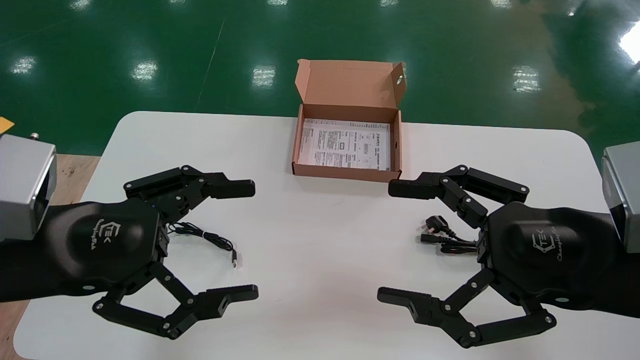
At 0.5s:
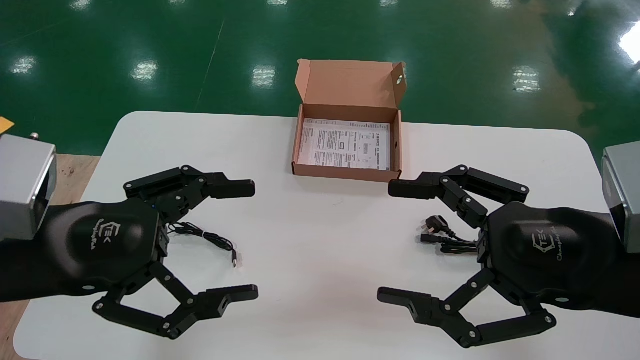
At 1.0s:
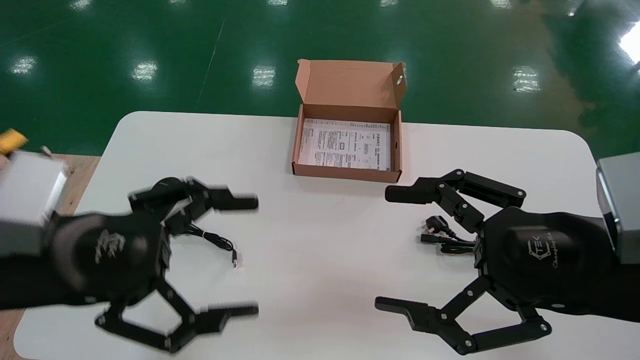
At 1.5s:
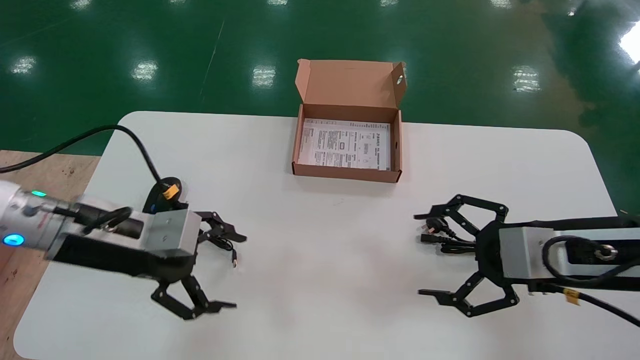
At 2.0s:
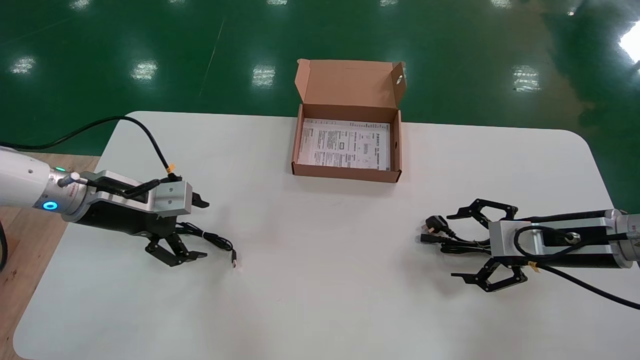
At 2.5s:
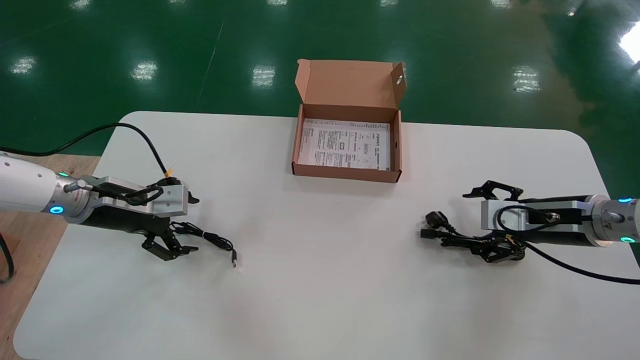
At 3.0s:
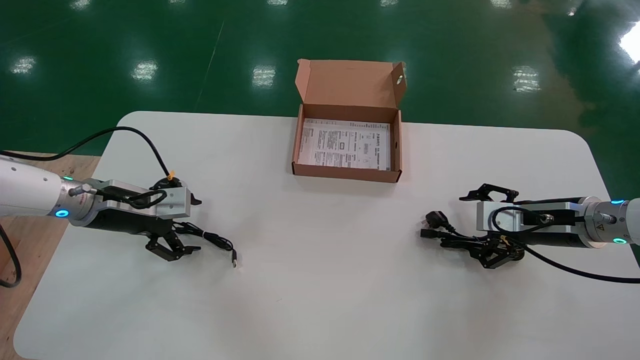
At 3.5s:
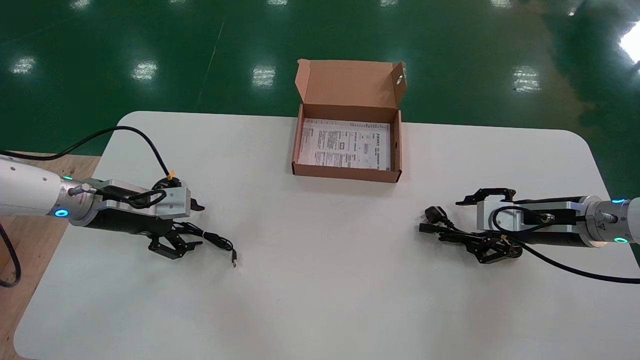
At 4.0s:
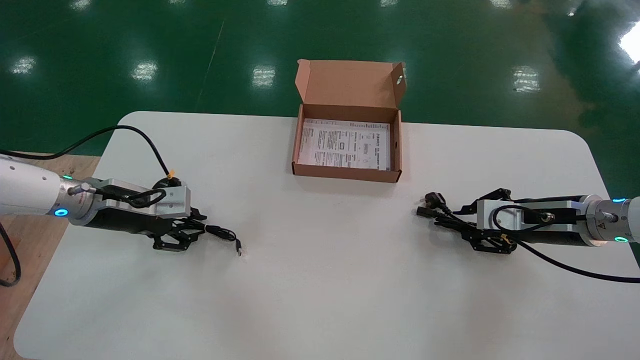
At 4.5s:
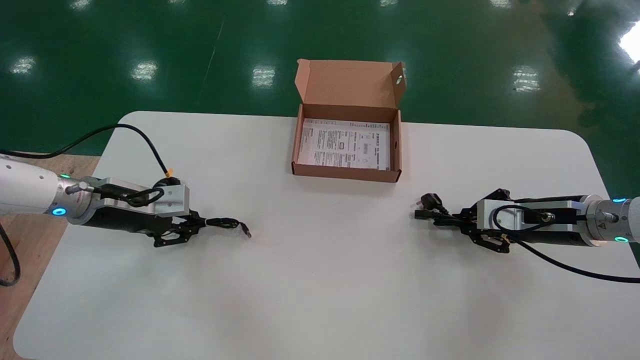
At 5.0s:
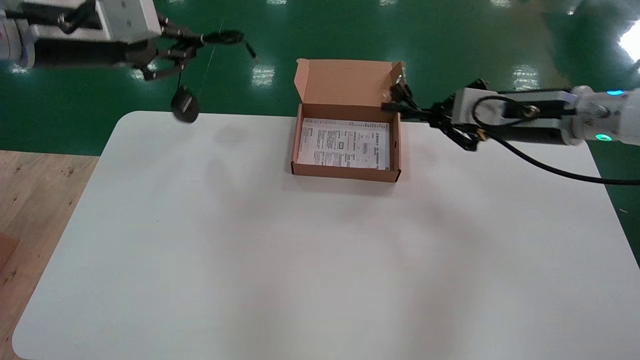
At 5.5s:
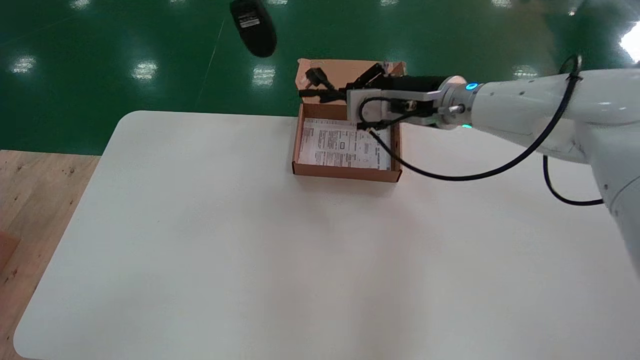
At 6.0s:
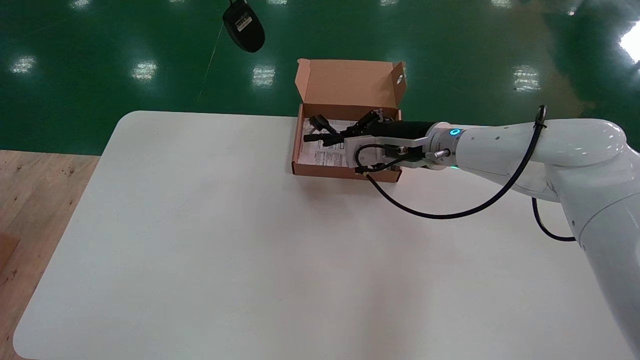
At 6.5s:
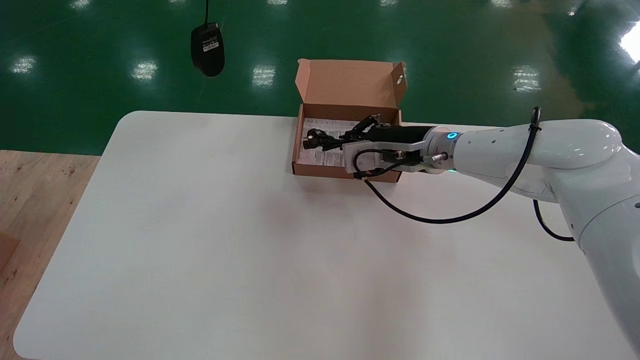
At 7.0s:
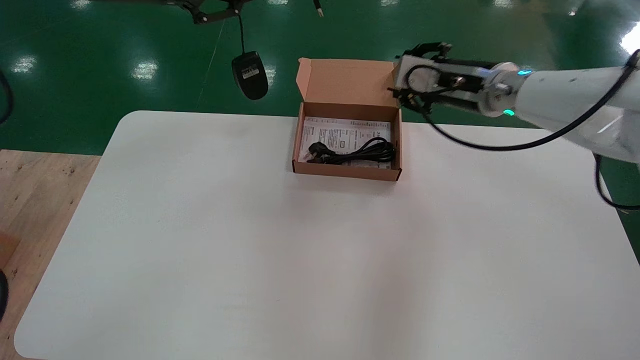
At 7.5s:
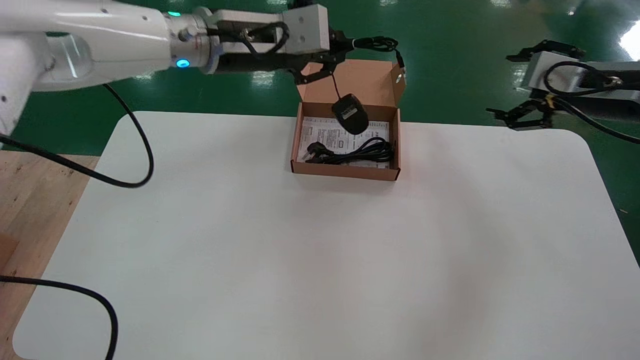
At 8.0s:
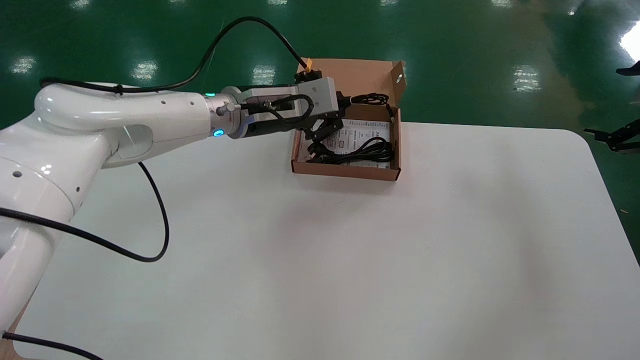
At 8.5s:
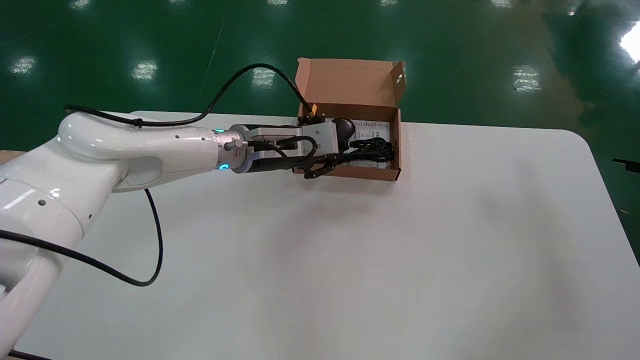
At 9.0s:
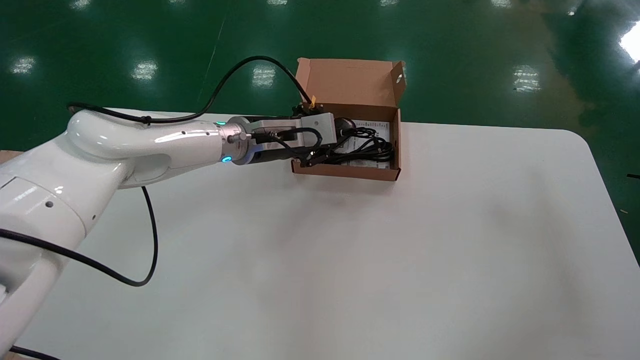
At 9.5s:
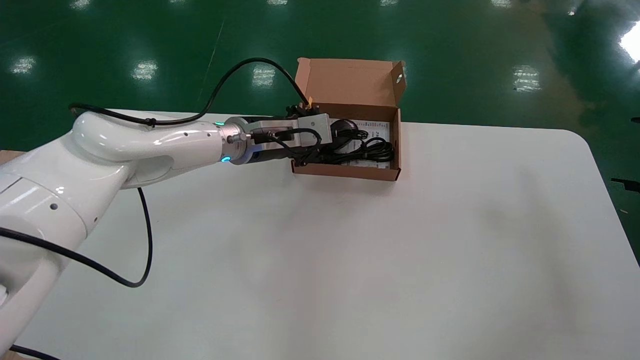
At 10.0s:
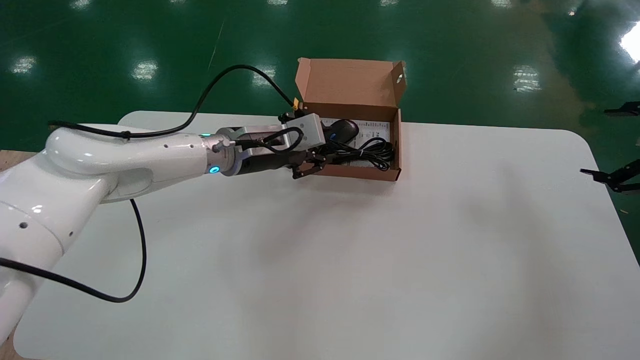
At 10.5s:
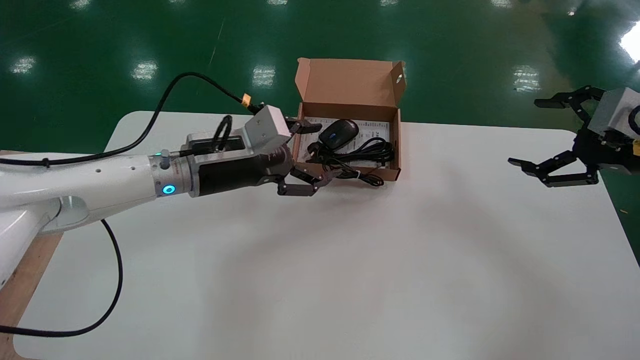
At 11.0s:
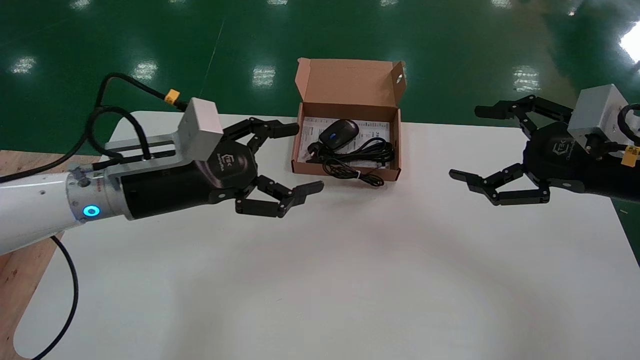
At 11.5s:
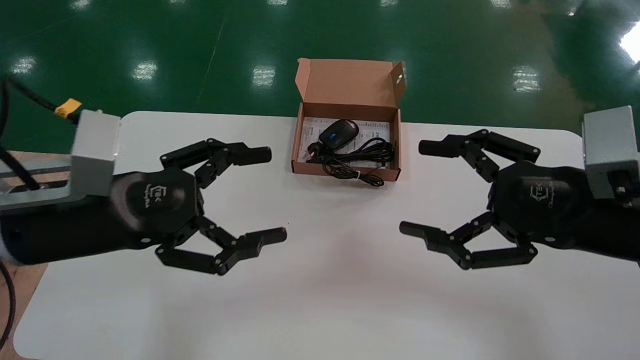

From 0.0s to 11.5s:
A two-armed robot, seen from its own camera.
Step, from 2.0s to 4.0s: Simultaneously pick up the mouse and power cord from the accessory packaging area.
Step, from 4.5s to 10.0s: Place the mouse and power cord into the box.
From 0.0s to 2.0s: The left gripper moves forward, some 20 cm. Meanwhile the right gripper moves forward, to the right and downward, approximately 20 cm.
From 2.0s to 4.0s: The right gripper shifts by roughly 5 cm, and closes up; the left gripper closes up.
From 4.0s to 6.0s: The left gripper moves upward, approximately 35 cm. Meanwhile the right gripper is displaced to the left and upward by about 20 cm.
From 6.0s to 7.5s: The left gripper moves downward, to the right and forward, roughly 20 cm. Meanwhile the right gripper travels to the right by approximately 25 cm, and opens up.
From 7.5s to 9.5s: The right gripper travels to the right and backward by some 15 cm. The left gripper heads downward and forward, covering approximately 15 cm.
From 9.5s to 11.5s: The left gripper heads backward and to the left, covering approximately 30 cm, and opens up. The right gripper heads to the left, covering some 25 cm.

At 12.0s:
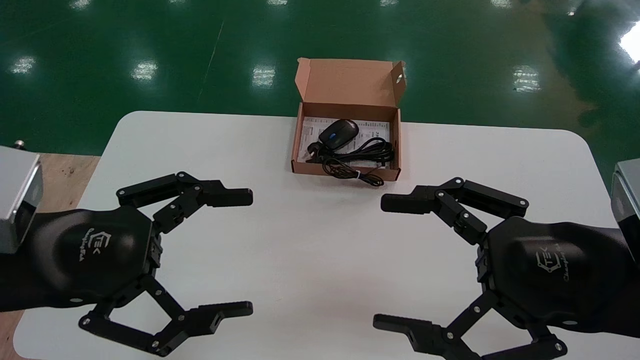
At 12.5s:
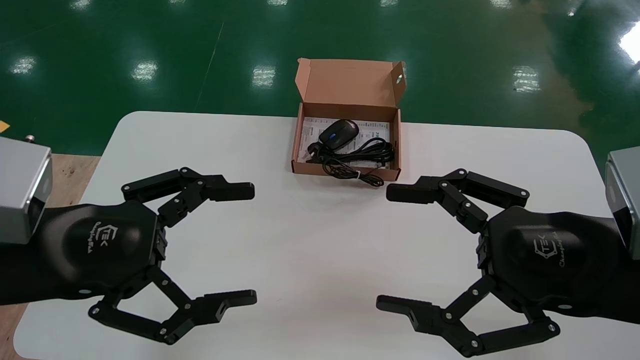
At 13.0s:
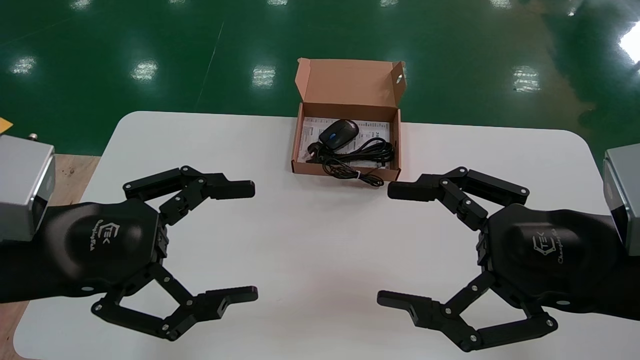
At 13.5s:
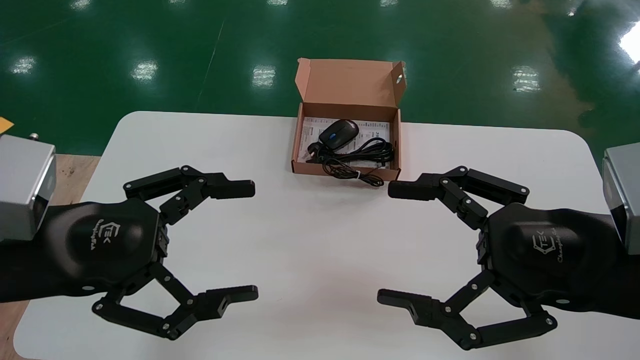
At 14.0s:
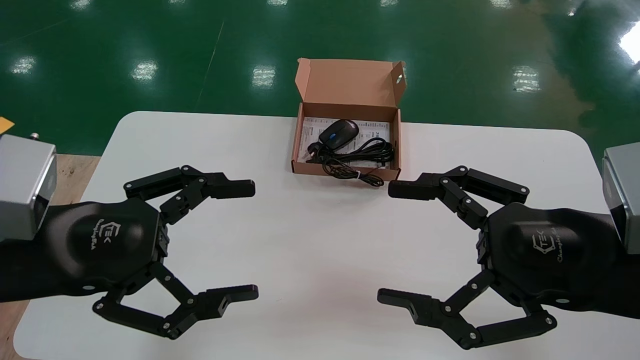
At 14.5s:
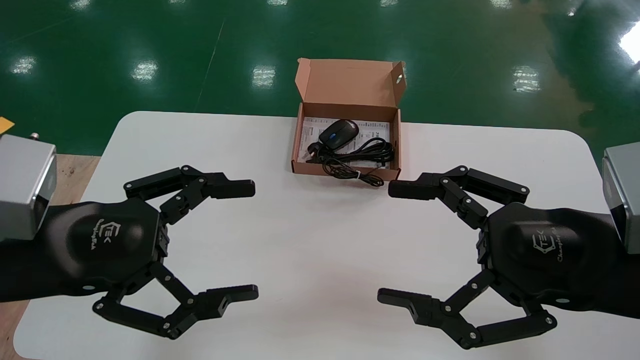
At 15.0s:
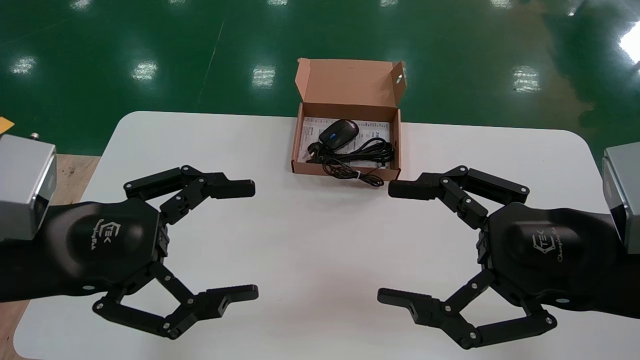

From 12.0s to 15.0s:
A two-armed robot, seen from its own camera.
From 12.0s to 15.0s: The two grippers keep their place.
